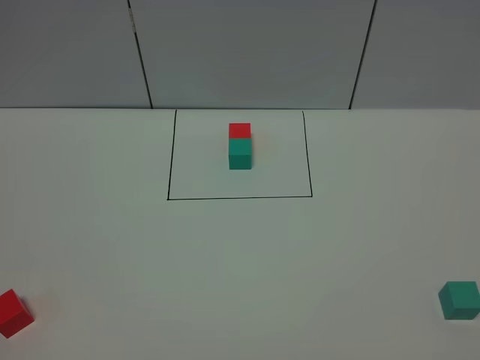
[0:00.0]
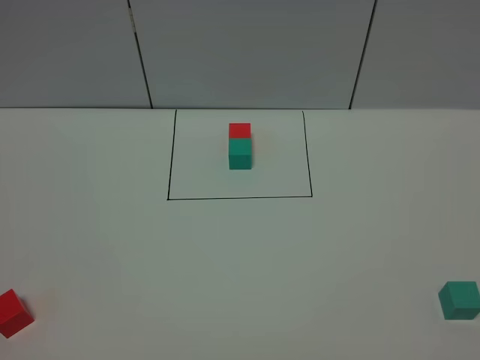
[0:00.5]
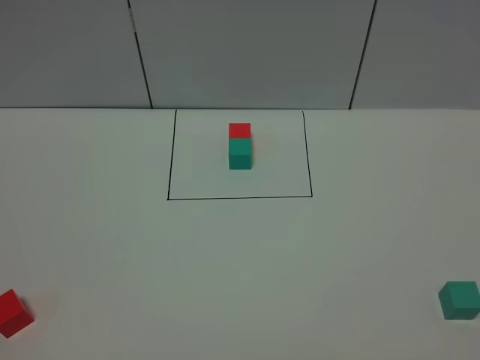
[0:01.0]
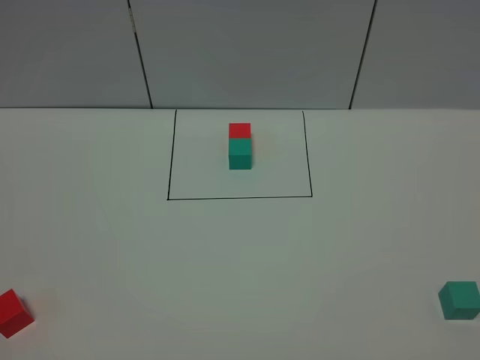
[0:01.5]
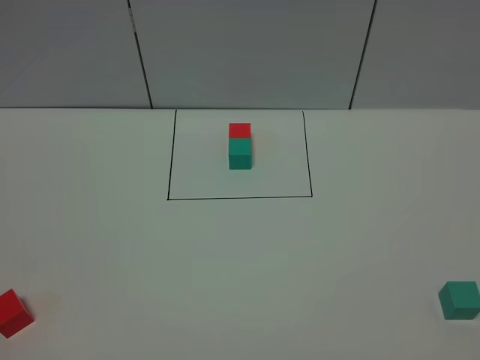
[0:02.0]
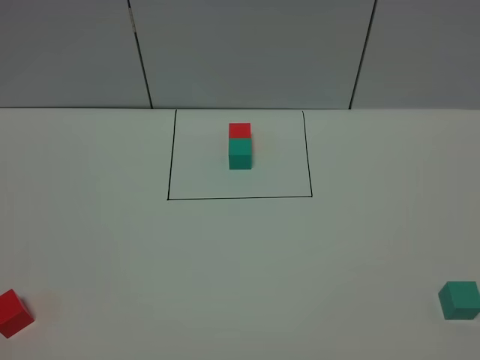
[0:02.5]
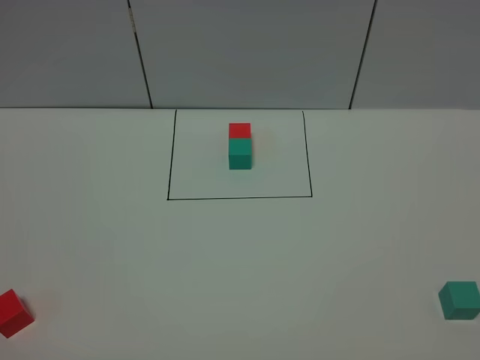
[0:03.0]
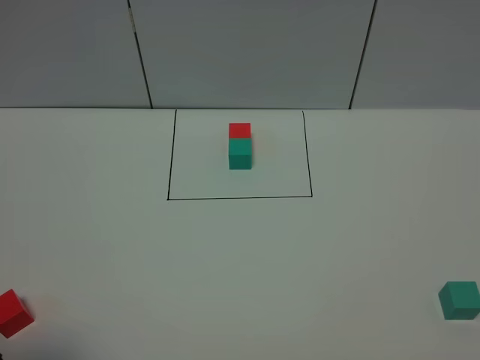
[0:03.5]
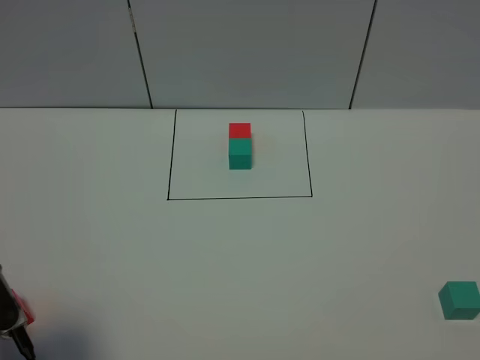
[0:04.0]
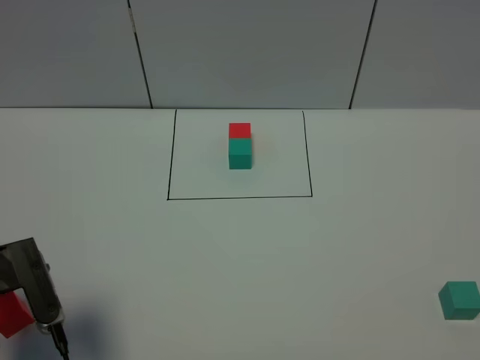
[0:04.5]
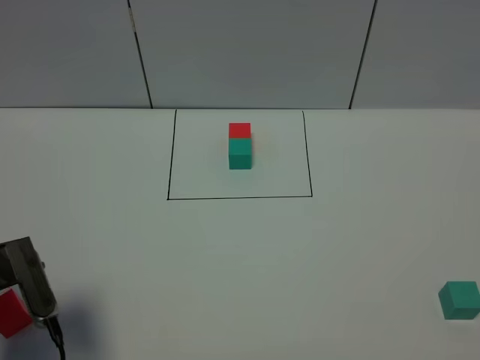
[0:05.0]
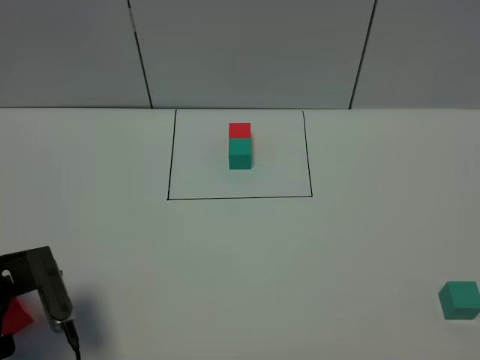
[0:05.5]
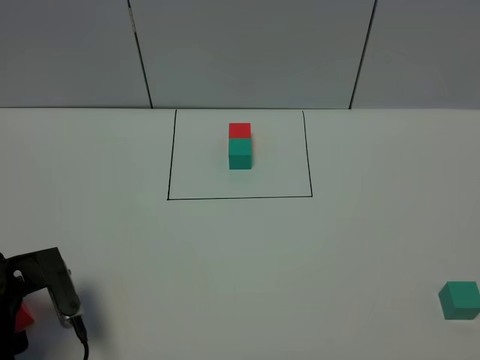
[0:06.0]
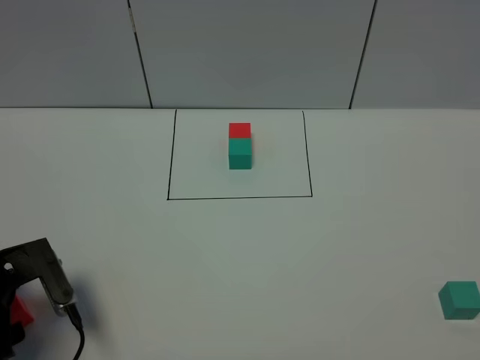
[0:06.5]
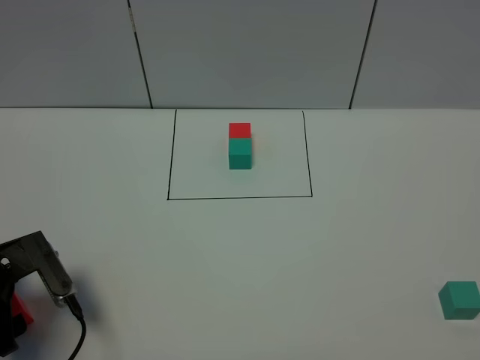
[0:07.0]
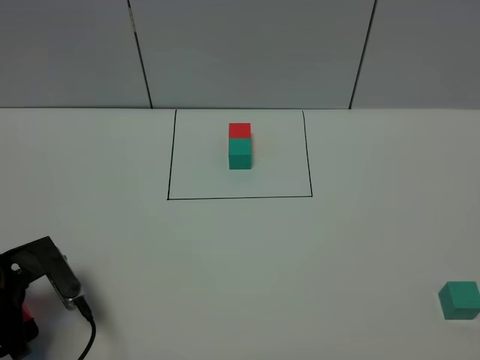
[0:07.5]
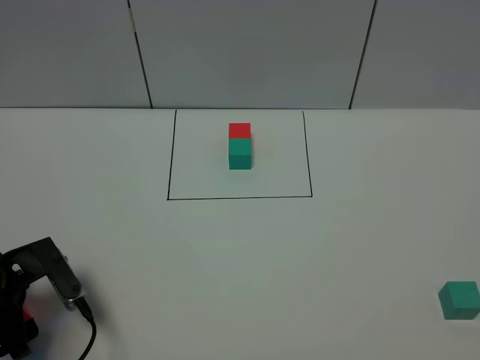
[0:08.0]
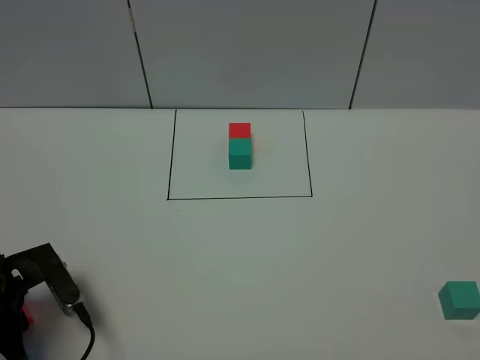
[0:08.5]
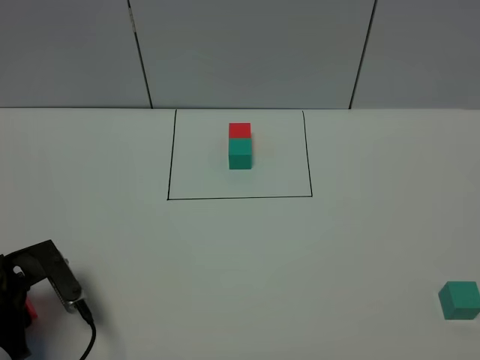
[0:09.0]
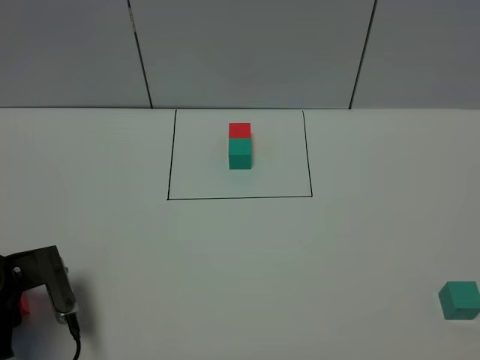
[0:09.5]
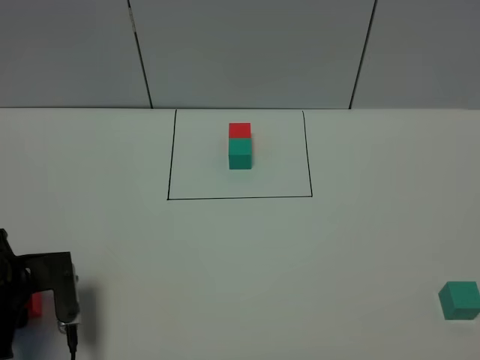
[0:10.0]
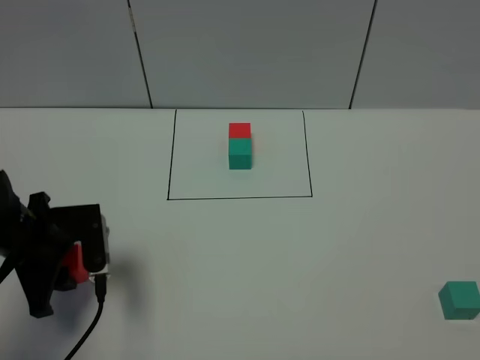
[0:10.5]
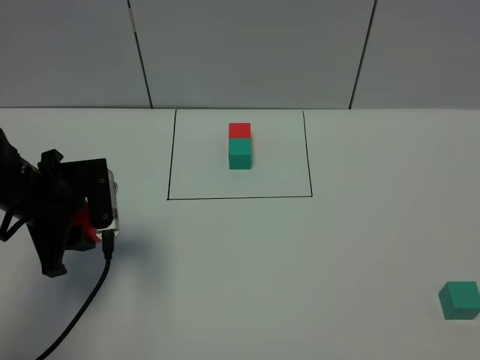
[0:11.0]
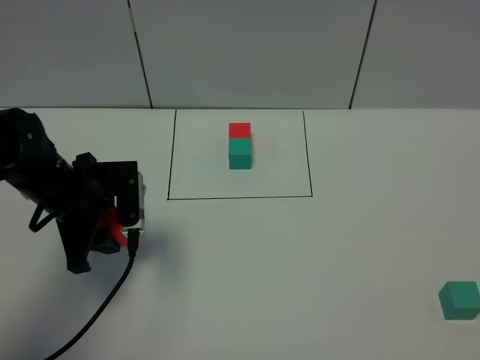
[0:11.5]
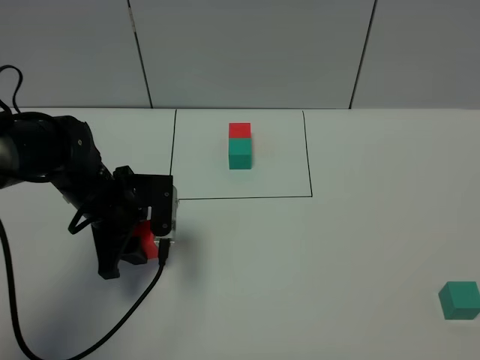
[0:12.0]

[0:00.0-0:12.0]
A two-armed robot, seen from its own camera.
Task of the whole recording: According to the building block template in front, assemble the scattered blocks together.
0:00.0 to 0:02.0: The two grippers keep their place.
0:02.0 to 0:04.0: The left gripper shifts approximately 15 cm forward, and opens its fingers.
0:04.0 to 0:06.0: The left gripper moves downward and forward, approximately 15 cm.
0:06.0 to 0:08.0: The grippers make only small movements.
0:08.0 to 0:10.0: The left gripper closes its fingers.
0:10.0 to 0:12.0: The left gripper goes about 15 cm to the right and forward.

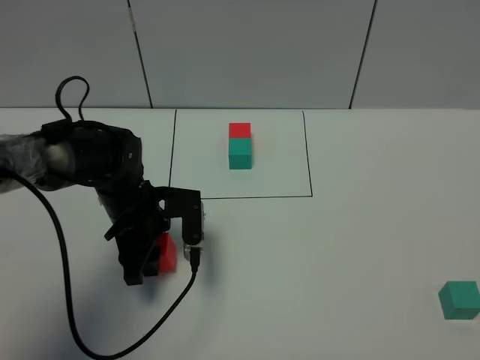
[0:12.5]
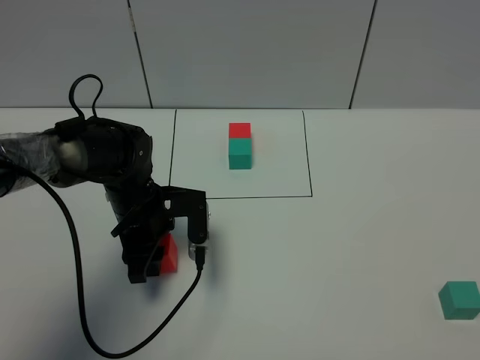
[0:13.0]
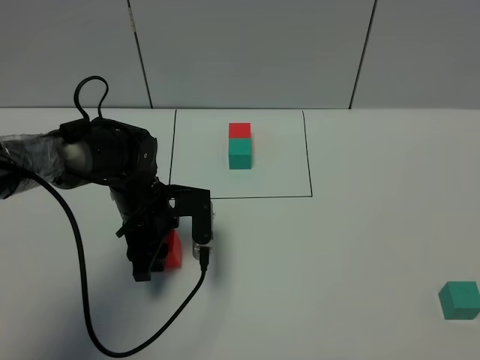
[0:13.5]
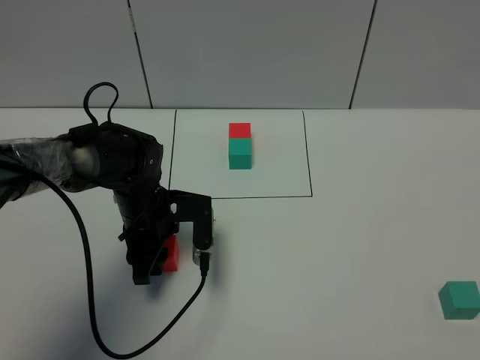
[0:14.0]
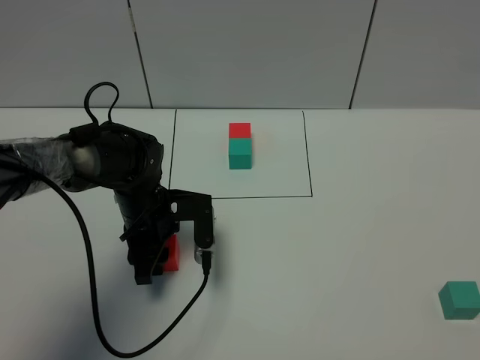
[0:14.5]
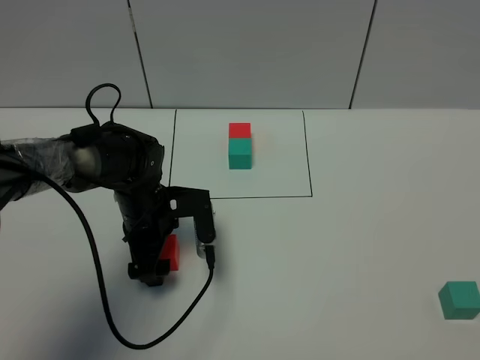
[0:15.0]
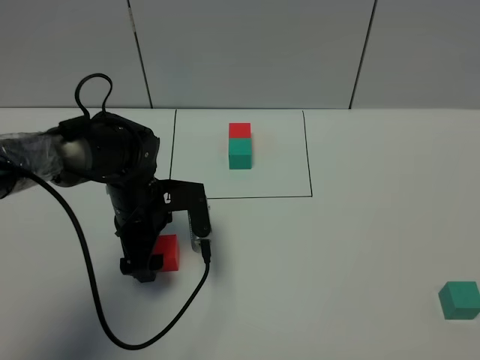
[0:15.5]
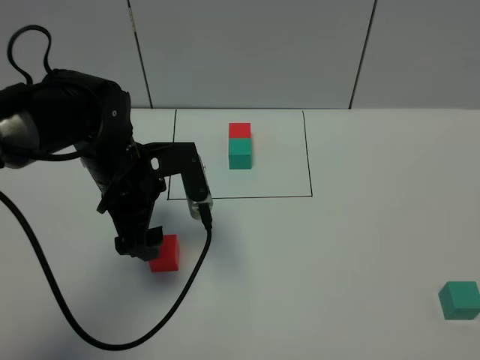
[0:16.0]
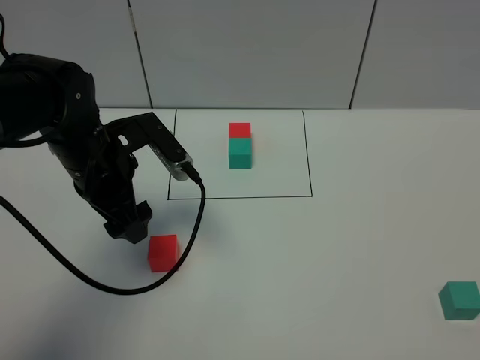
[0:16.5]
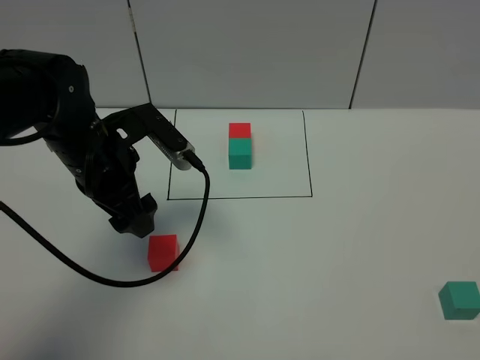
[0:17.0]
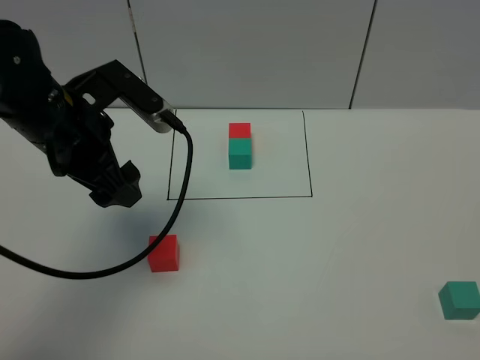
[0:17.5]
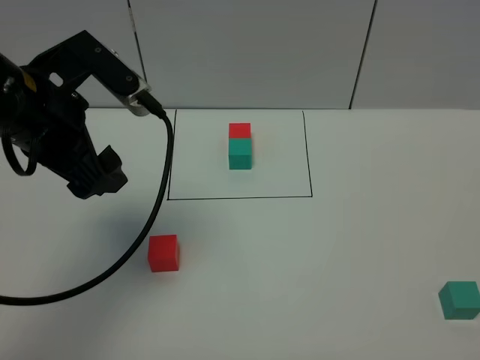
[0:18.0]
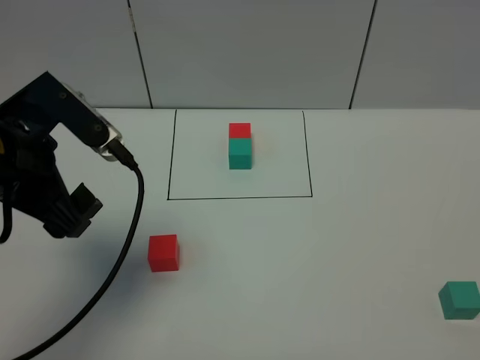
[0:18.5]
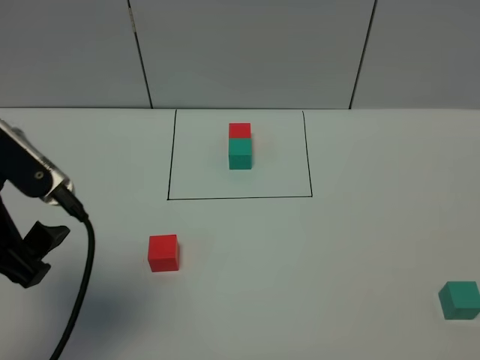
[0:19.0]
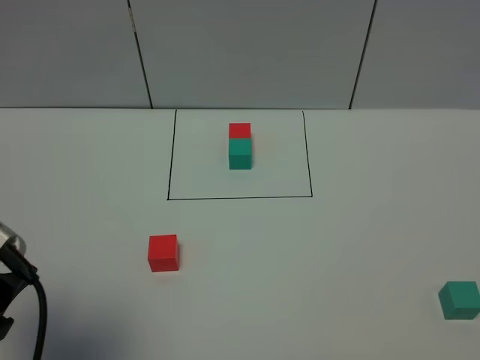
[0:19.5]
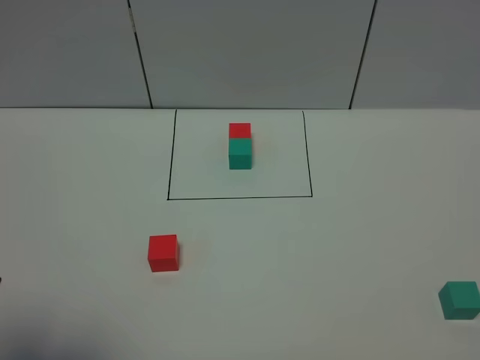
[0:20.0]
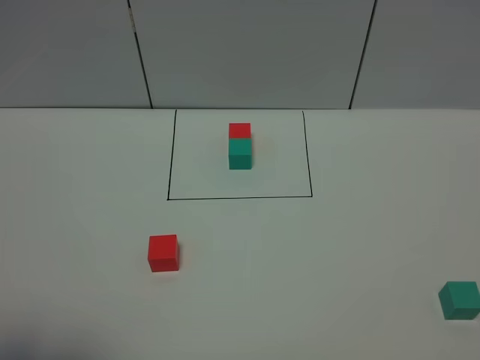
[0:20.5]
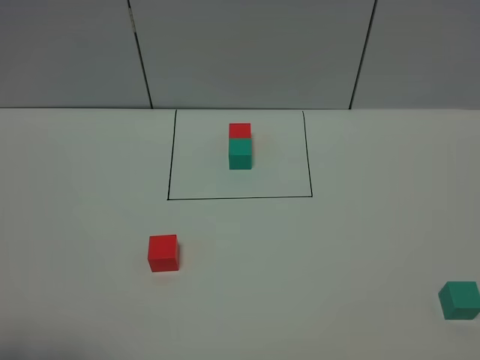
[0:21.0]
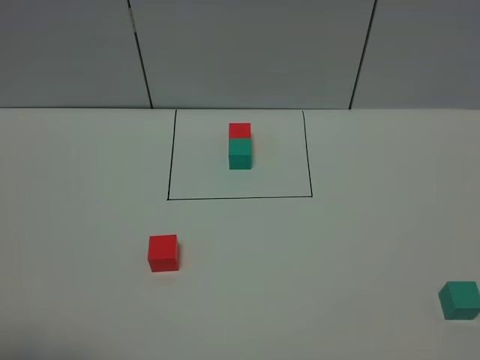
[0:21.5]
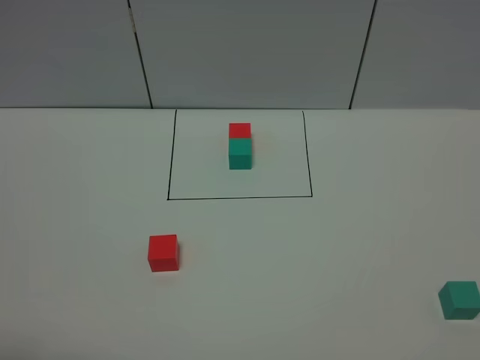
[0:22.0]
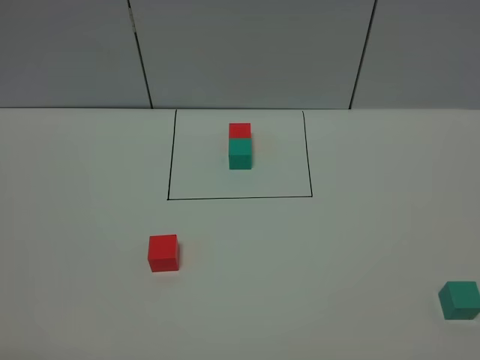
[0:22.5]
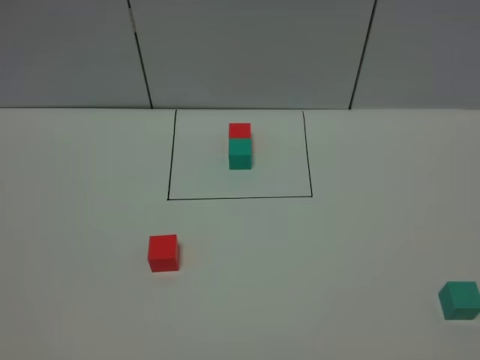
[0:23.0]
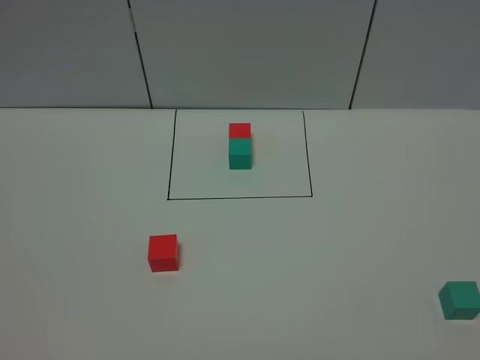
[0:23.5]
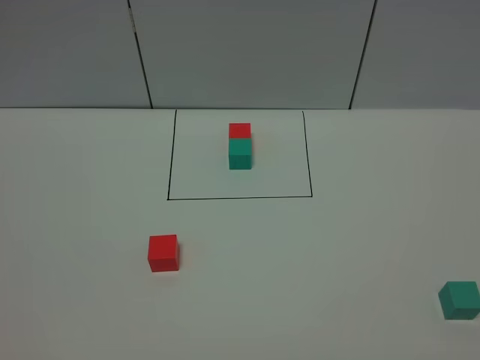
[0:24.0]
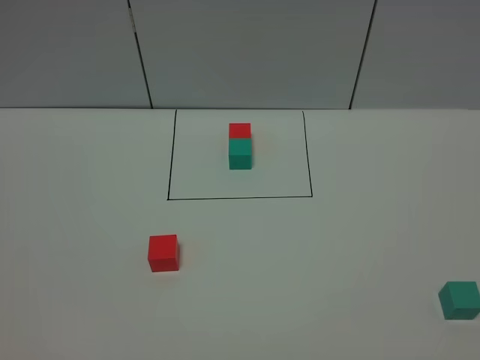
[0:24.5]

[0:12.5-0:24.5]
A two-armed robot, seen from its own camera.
Task of the whole recording: According to the building block template in front, assemble the scattered blocks together.
Step, 0:12.5 to 0:15.0: Put the red cube in the center of the table.
0:12.5 to 0:14.5: There are only small adjustments of the grippers.
0:14.5 to 0:16.5: The left gripper heads upward, covering about 10 cm, and opens its fingers.
0:16.5 to 0:18.5: The left gripper shifts about 15 cm backward and upward.
0:18.5 to 0:20.5: The left gripper moves backward, some 15 cm.
0:20.5 to 0:22.5: The left gripper moves backward, some 5 cm.

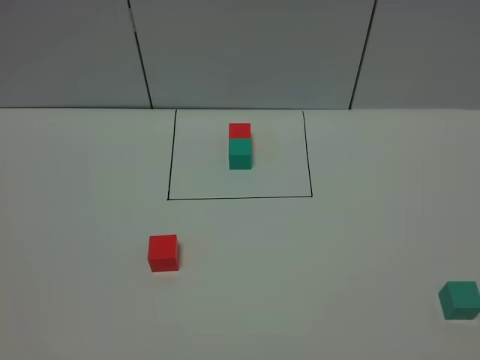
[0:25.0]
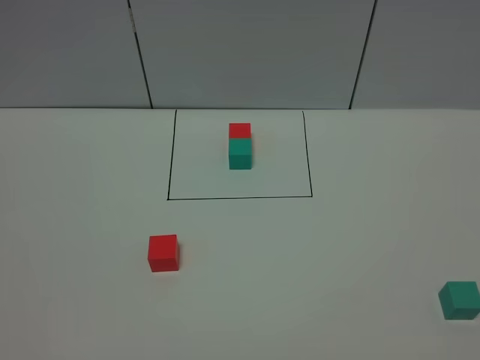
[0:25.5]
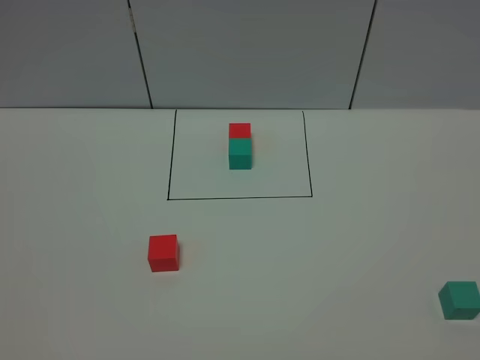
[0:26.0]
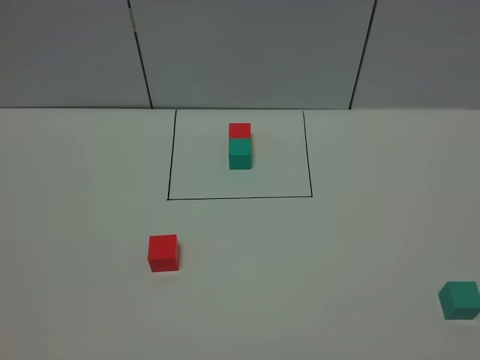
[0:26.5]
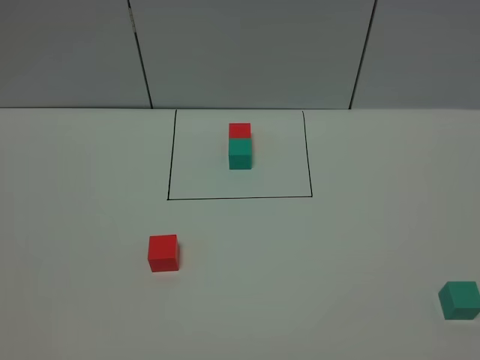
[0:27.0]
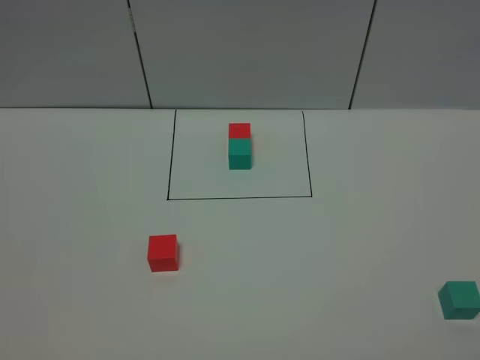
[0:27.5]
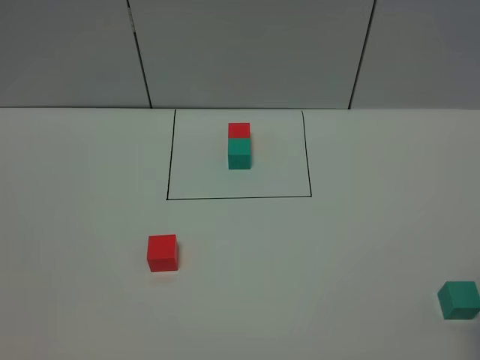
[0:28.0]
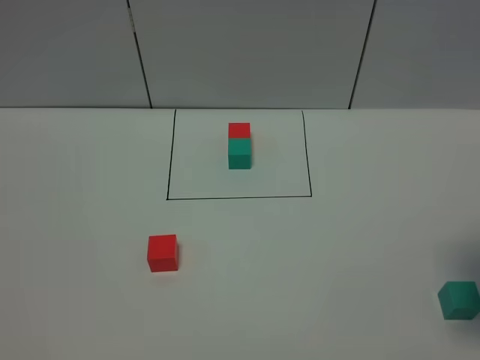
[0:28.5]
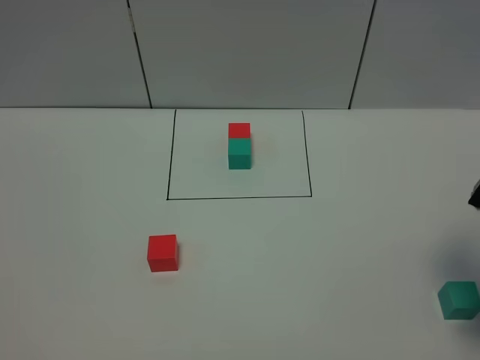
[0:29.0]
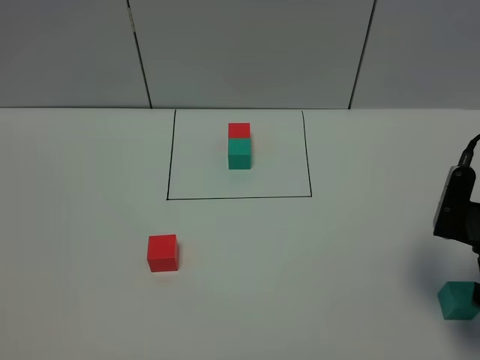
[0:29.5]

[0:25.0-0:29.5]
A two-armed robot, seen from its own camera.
Task of the whole recording: According to the building block template in front, assemble the scattered blocks together.
0:25.0 to 0:27.0: Both grippers stay about where they are.
0:27.0 to 0:29.5: The right gripper goes about 25 cm forward, and opens.
